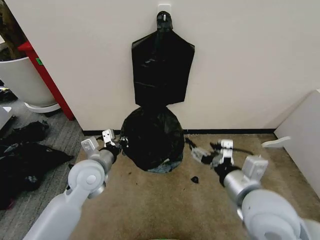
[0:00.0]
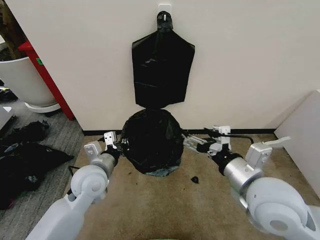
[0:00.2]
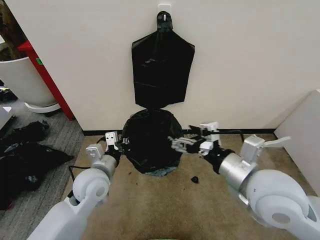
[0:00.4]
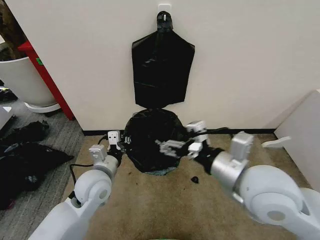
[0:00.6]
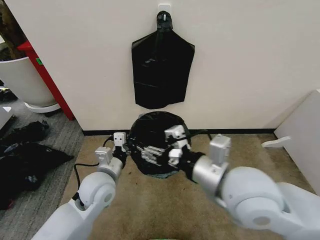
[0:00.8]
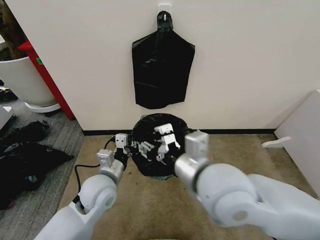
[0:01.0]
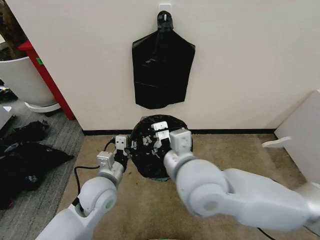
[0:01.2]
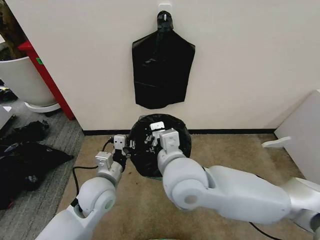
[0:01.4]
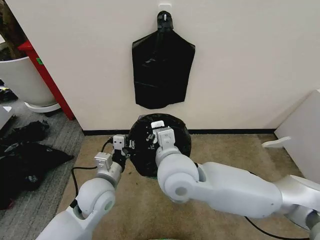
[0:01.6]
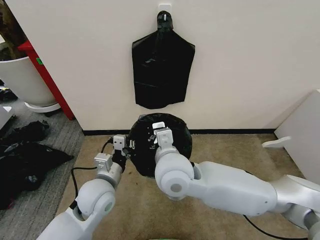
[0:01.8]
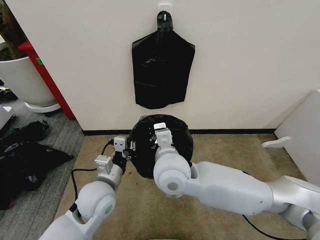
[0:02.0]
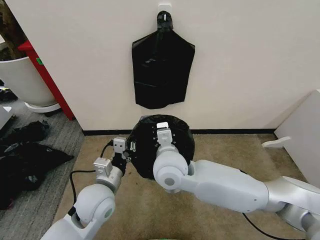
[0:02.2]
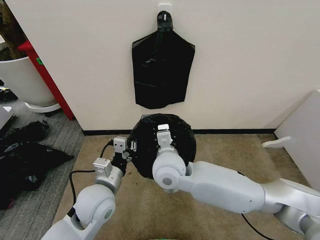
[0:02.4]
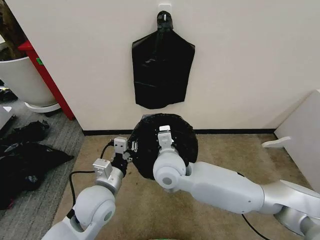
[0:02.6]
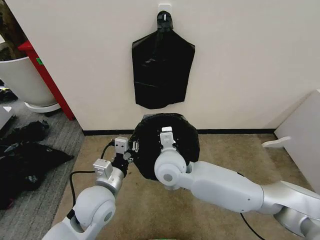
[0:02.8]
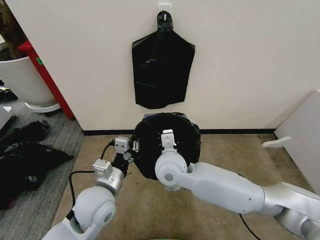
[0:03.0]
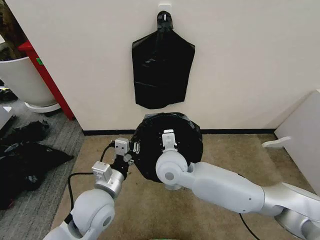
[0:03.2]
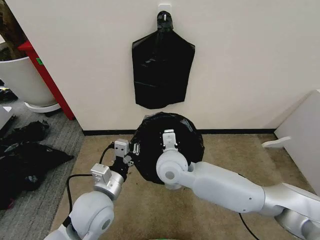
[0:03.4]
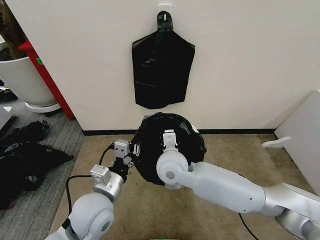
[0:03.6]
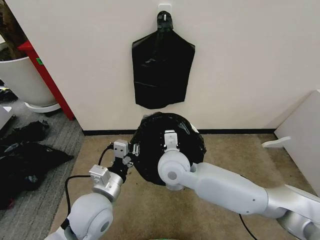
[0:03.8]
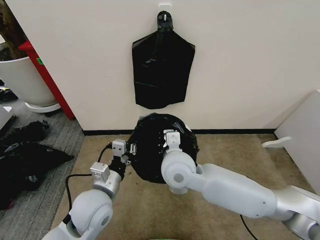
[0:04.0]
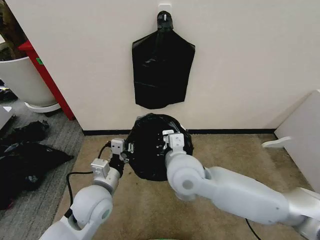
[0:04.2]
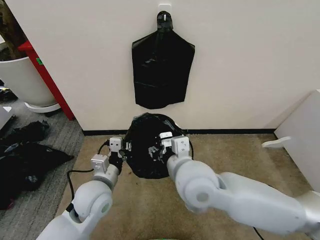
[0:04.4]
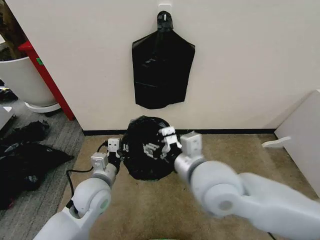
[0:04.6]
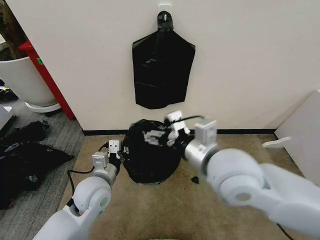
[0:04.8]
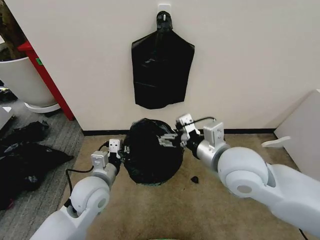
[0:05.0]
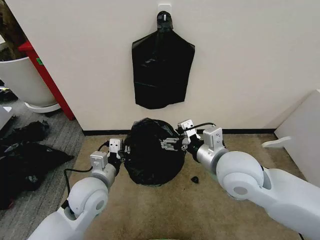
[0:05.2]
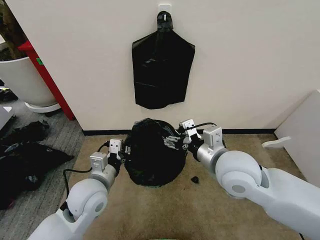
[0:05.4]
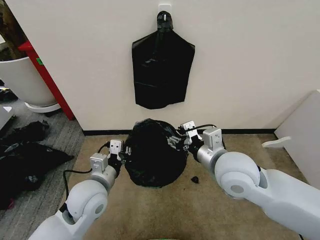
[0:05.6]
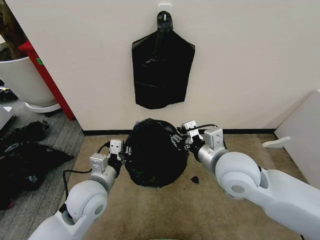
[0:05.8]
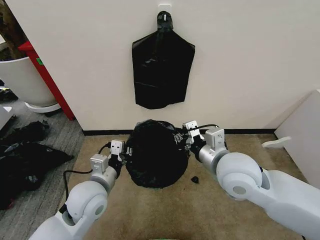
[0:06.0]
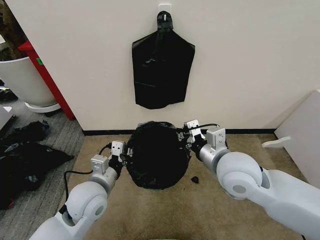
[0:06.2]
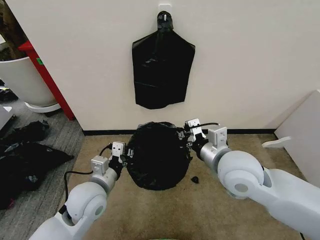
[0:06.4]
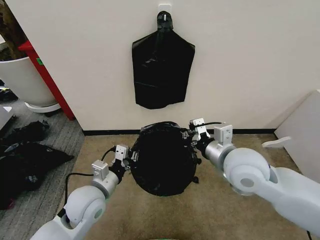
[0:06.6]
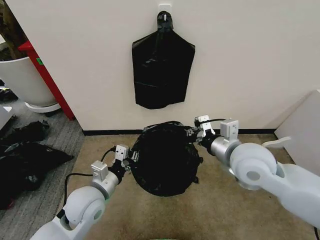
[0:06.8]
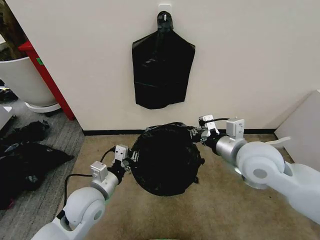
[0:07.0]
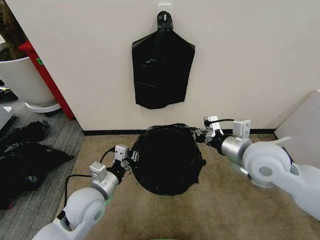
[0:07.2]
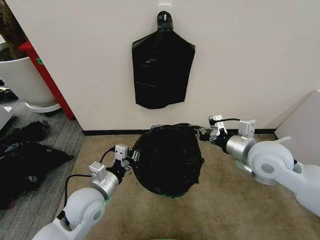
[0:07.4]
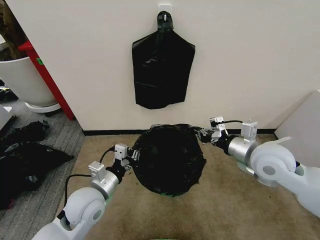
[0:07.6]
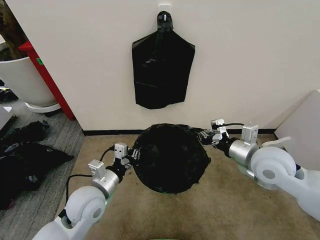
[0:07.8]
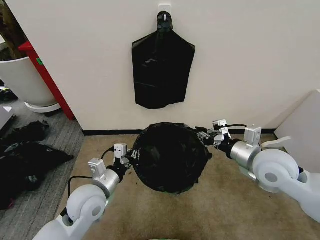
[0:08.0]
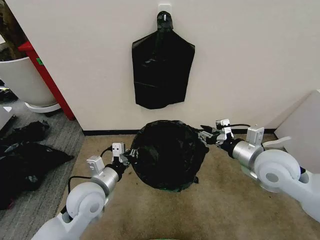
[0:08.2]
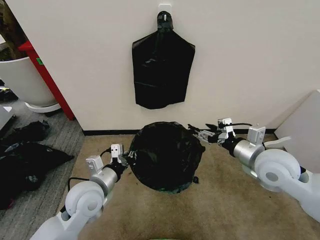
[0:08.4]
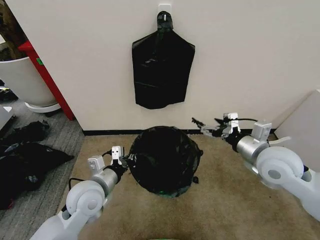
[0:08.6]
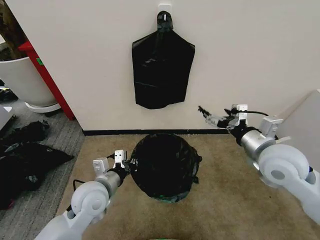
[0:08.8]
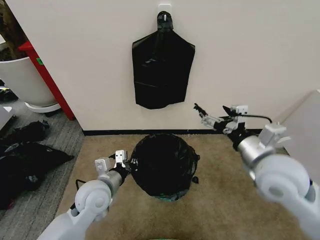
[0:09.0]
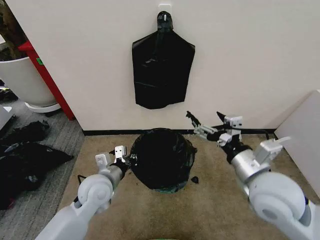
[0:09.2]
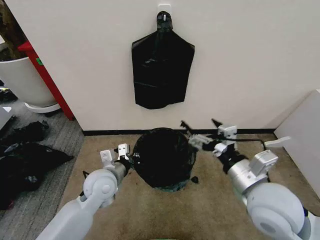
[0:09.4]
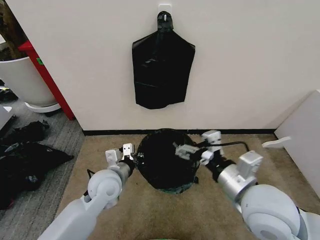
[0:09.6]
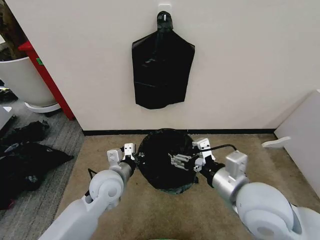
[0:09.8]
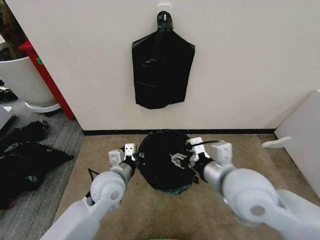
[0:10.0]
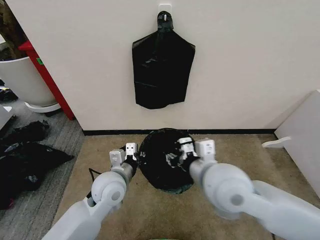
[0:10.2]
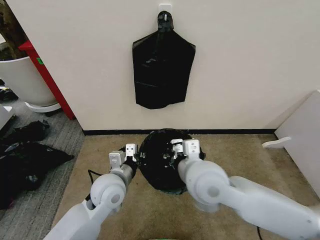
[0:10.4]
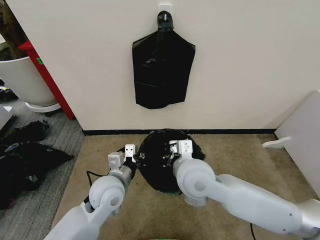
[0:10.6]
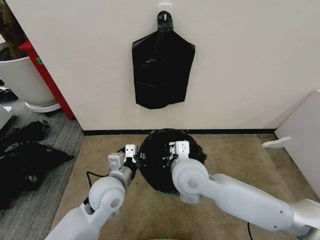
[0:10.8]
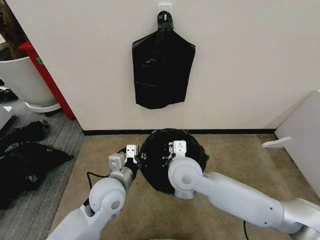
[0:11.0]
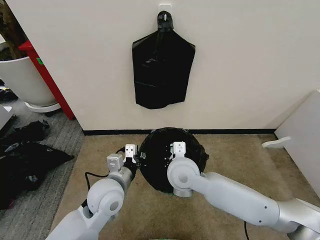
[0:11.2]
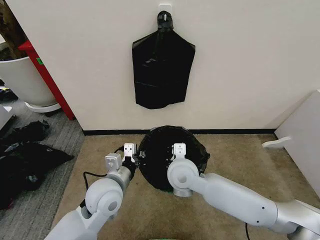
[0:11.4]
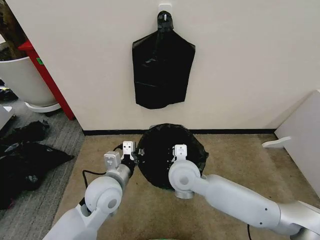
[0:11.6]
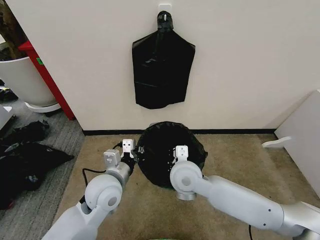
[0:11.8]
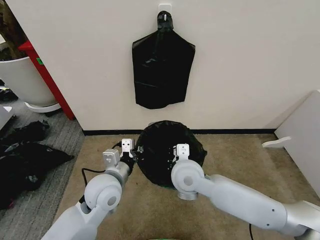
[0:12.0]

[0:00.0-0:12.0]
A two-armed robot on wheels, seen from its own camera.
Task of the whole recording: Place the garbage bag over the trash bin.
0:00.0 to 0:01.6: The right gripper moves to the left and forward, roughly 20 cm, and closes its fingers. Meanwhile the left gripper moves approximately 5 cm.
0:01.6 to 0:03.0: The right gripper travels downward and forward by about 10 cm.
0:03.0 to 0:04.4: The right gripper goes about 10 cm backward, upward and to the right, and opens its fingers.
0:04.4 to 0:06.0: The right gripper is displaced to the right by roughly 10 cm, and closes.
0:06.0 to 0:07.6: The right gripper goes about 10 cm to the right.
0:07.6 to 0:09.0: The right gripper is displaced backward by approximately 5 cm, and opens up.
0:09.0 to 0:10.4: The right gripper heads to the left, covering roughly 15 cm, and closes.
0:10.4 to 0:12.0: The right gripper goes roughly 5 cm downward.

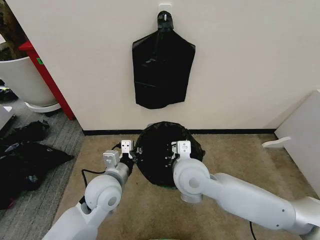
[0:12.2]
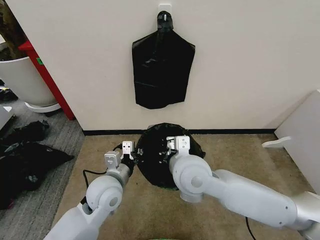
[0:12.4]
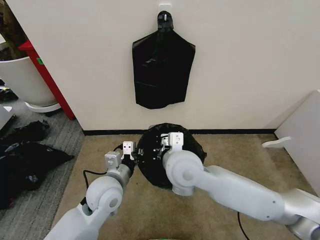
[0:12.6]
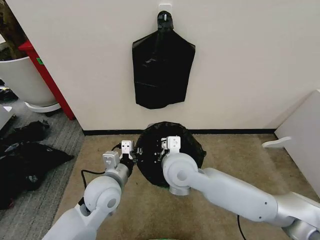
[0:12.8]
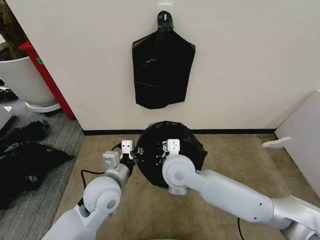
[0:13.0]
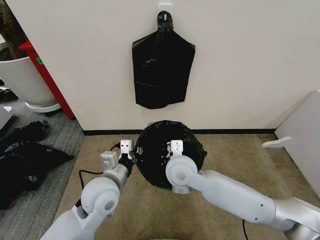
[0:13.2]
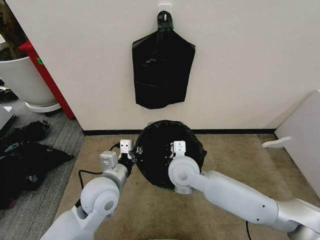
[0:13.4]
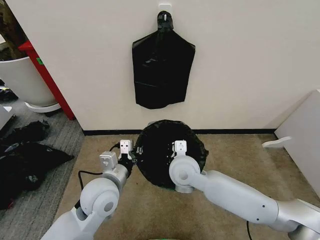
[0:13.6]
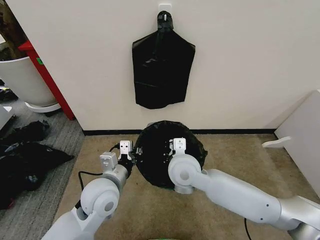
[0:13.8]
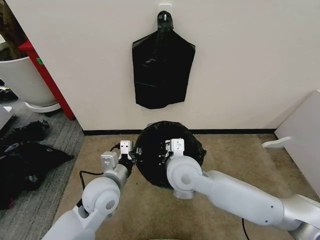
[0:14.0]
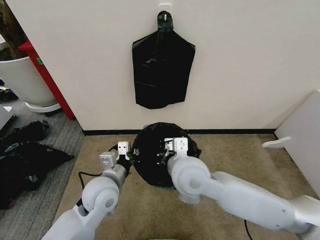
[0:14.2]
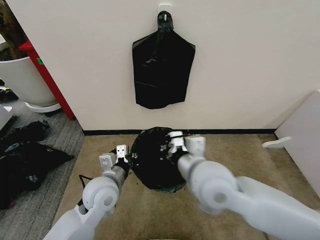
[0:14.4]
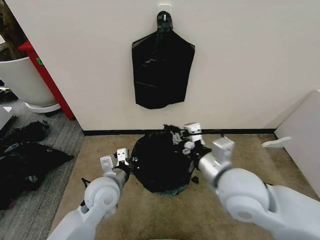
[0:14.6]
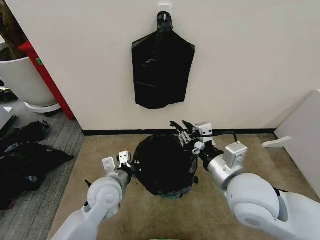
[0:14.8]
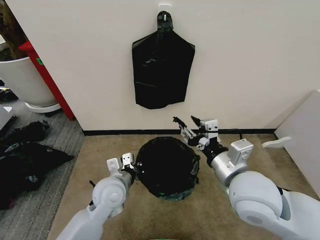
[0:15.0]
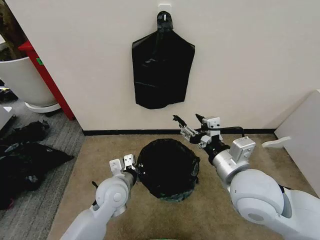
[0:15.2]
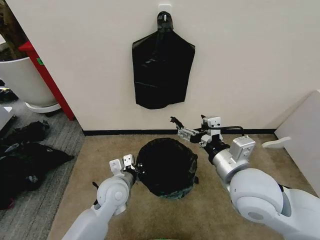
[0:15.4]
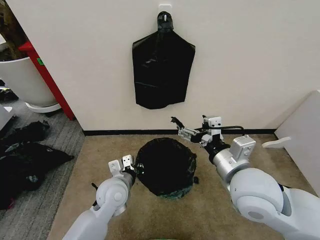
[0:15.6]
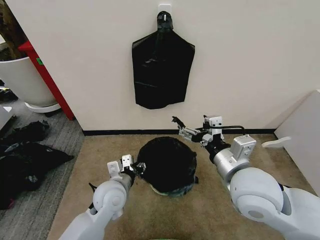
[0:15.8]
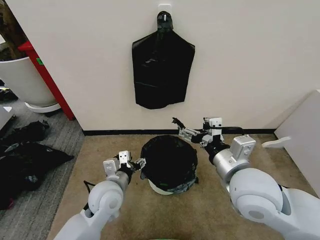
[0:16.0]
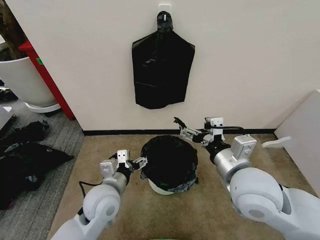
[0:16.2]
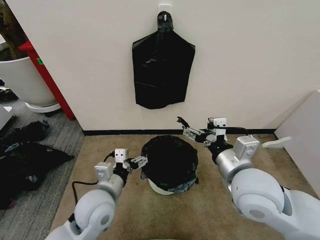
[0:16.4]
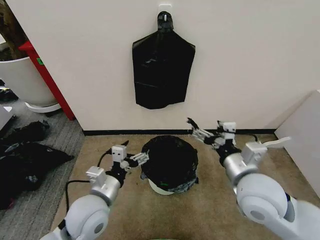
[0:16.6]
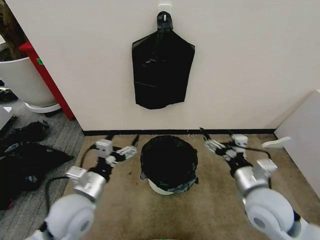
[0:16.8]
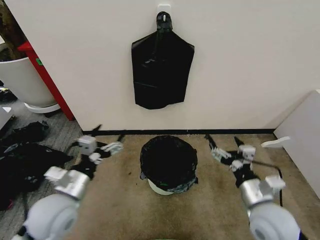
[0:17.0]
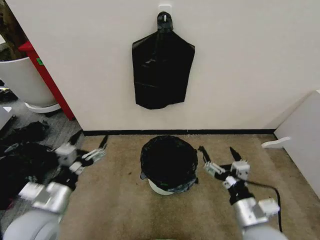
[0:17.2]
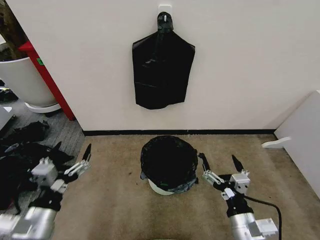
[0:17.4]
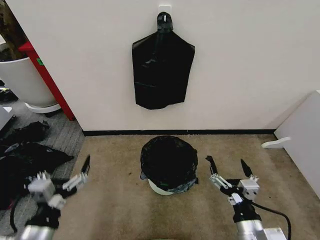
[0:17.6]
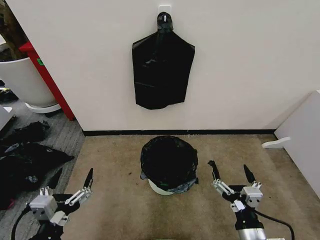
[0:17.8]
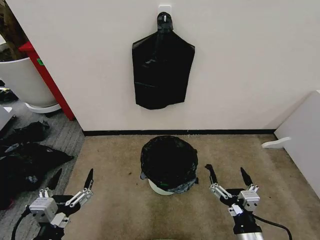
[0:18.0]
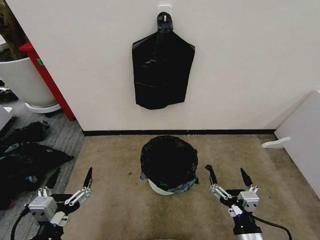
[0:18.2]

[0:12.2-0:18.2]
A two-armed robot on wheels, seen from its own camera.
Task of the whole recording: Place the garbage bag over the trash bin.
0:13.8 to 0:15.2: The left gripper moves downward, about 5 cm, while the right gripper travels to the right, backward and upward by some 15 cm, and opens its fingers.
0:15.2 to 0:16.6: The left gripper shifts roughly 5 cm backward, and opens.
0:16.6 to 0:18.2: The right gripper shifts approximately 20 cm backward and downward. Meanwhile the left gripper goes about 20 cm backward and to the left.

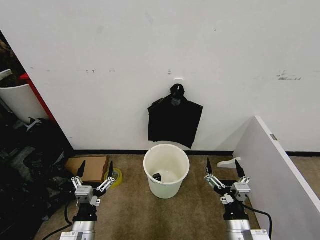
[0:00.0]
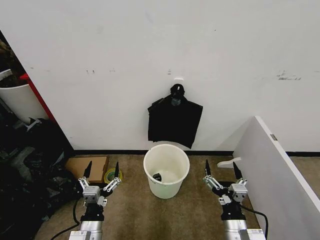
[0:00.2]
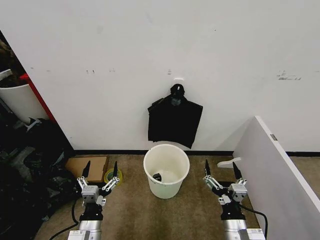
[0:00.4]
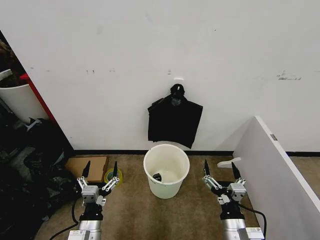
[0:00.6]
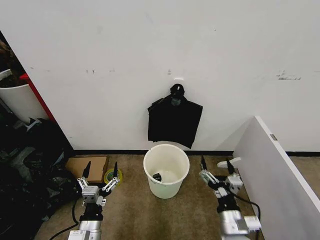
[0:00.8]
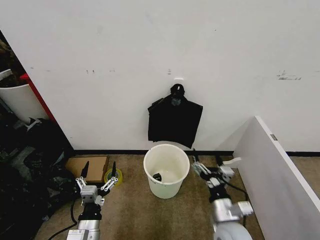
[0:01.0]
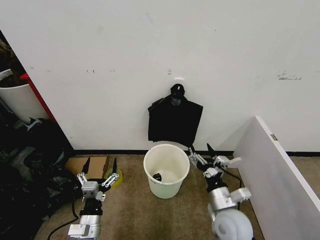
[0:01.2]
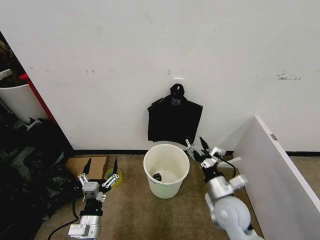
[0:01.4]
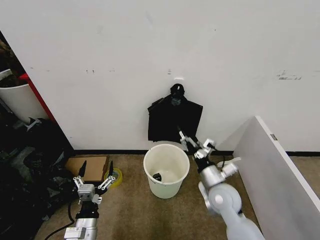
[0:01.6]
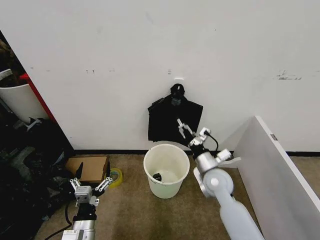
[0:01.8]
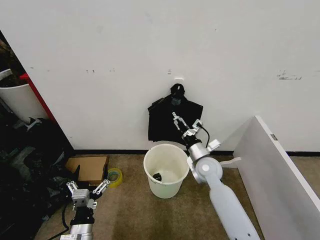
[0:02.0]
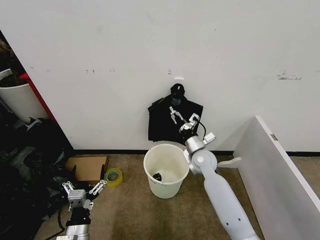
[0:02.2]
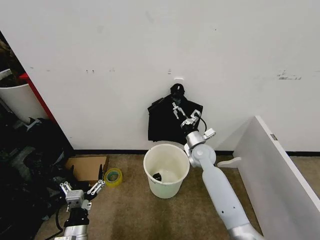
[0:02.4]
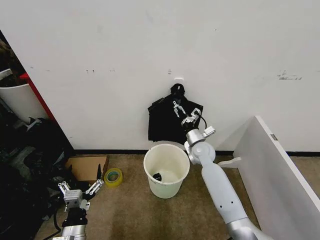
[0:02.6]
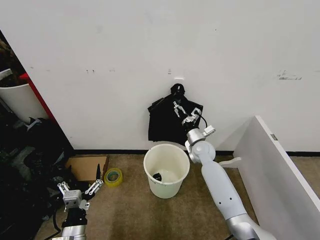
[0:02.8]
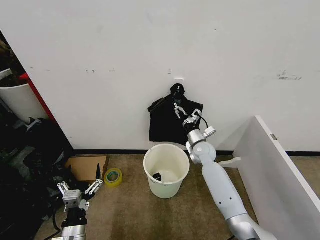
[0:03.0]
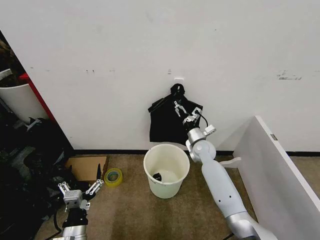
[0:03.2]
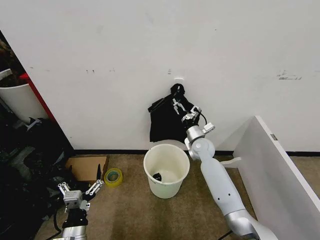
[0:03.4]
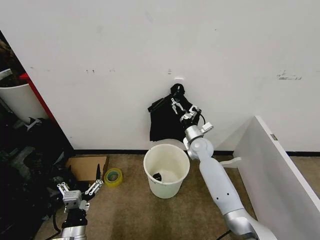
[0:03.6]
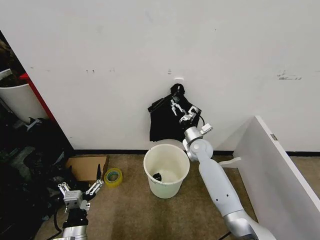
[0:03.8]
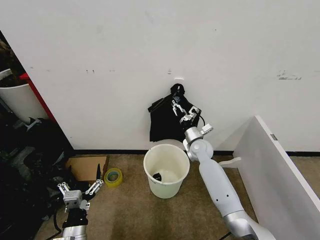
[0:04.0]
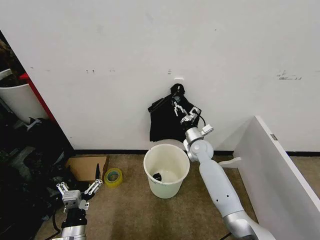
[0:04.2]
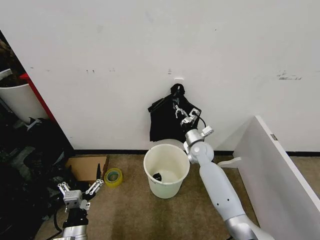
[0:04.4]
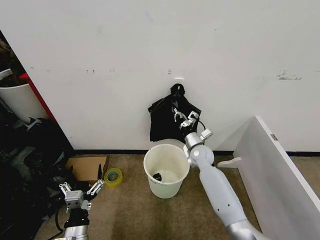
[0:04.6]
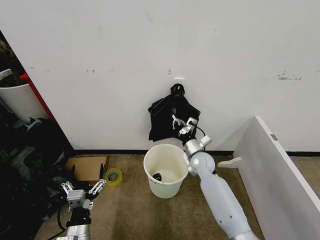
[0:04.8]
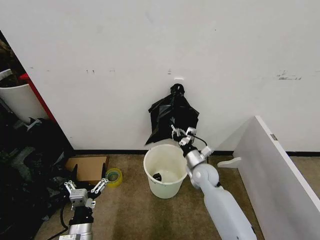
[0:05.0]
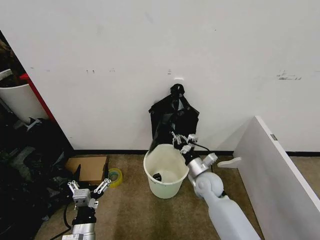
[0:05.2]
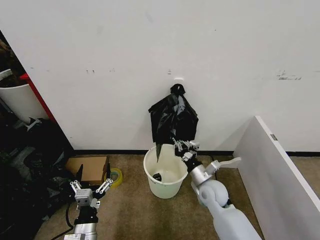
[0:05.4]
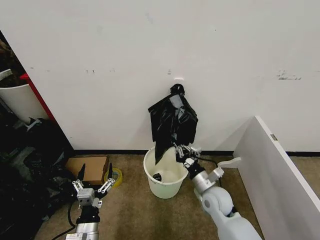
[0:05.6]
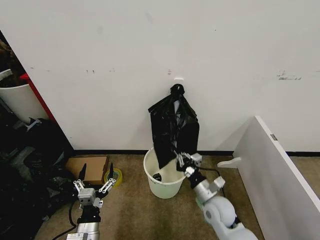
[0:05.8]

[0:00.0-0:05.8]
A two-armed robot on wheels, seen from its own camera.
Task of the whole recording: Place the garbage bag over the trash bin.
0:01.4 to 0:02.8: The right gripper shifts about 25 cm forward.
0:02.8 to 0:04.4: The right gripper closes.
0:04.4 to 0:05.8: The right gripper is displaced backward by about 20 cm.
